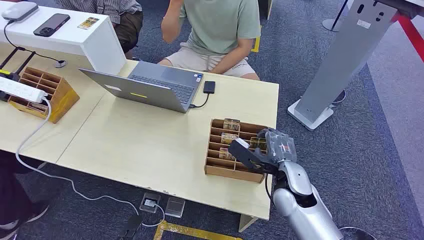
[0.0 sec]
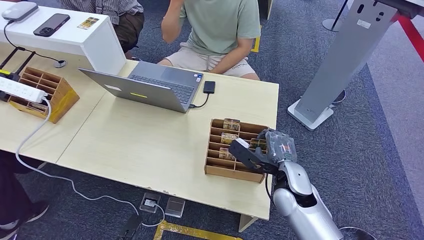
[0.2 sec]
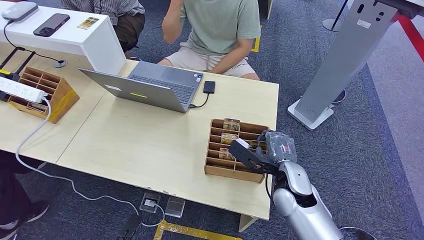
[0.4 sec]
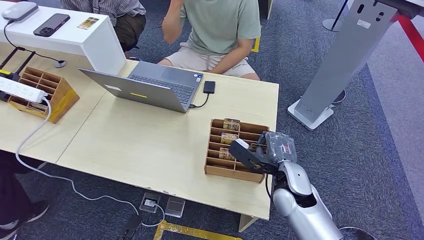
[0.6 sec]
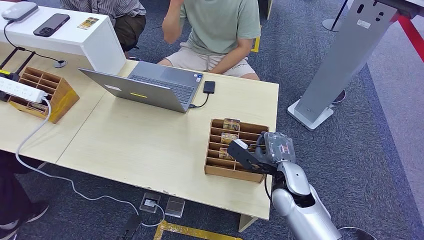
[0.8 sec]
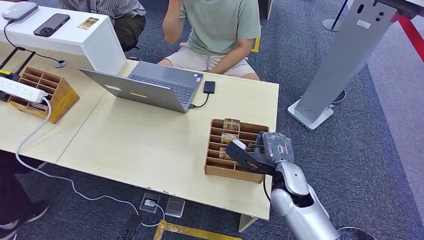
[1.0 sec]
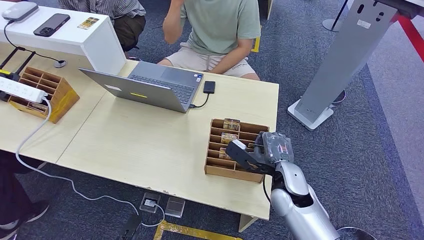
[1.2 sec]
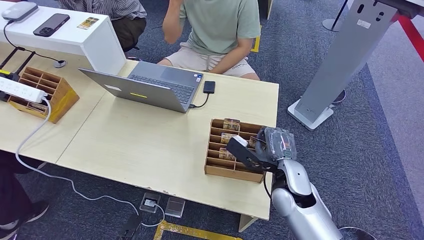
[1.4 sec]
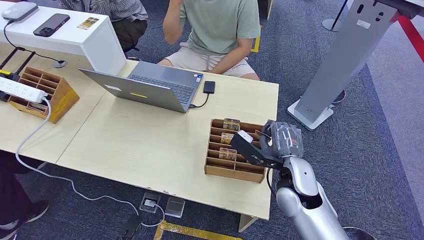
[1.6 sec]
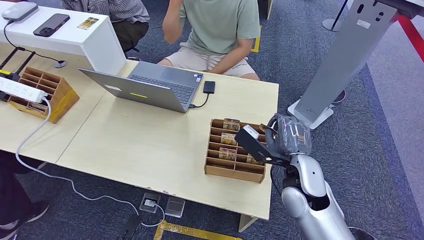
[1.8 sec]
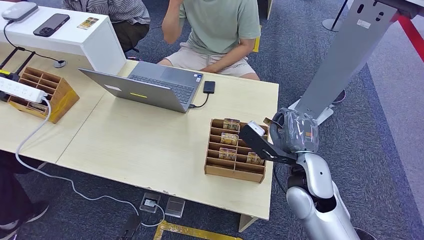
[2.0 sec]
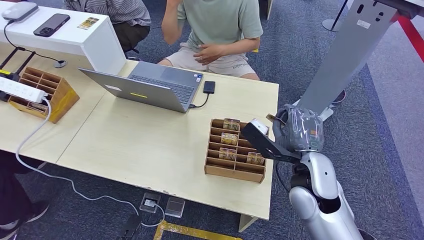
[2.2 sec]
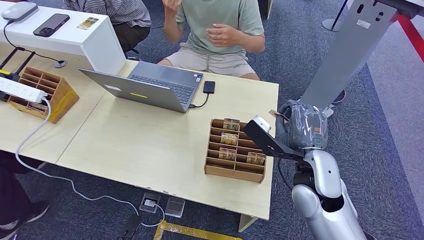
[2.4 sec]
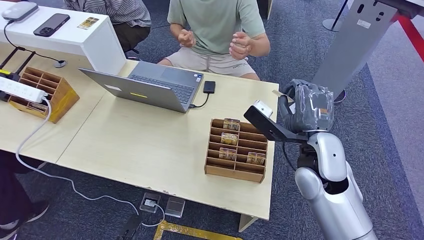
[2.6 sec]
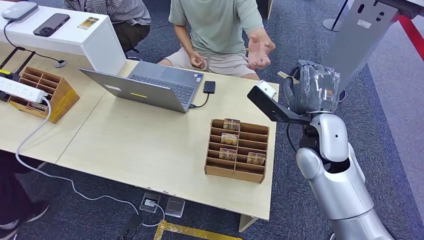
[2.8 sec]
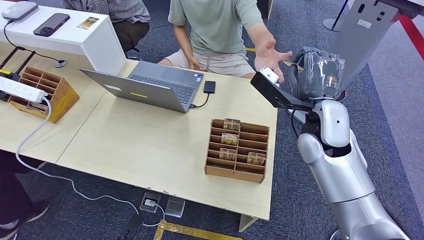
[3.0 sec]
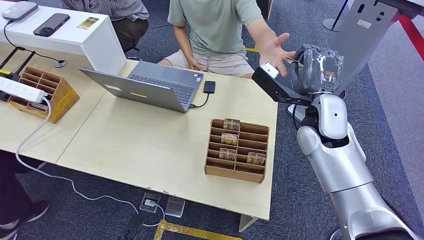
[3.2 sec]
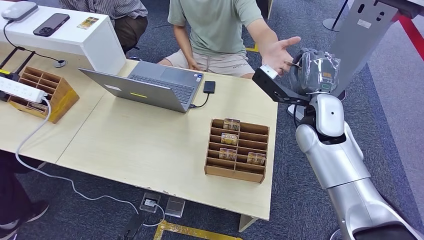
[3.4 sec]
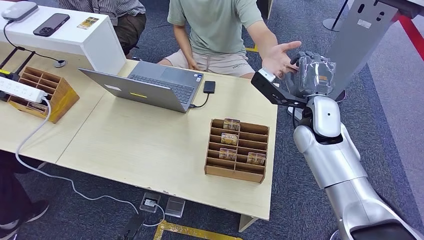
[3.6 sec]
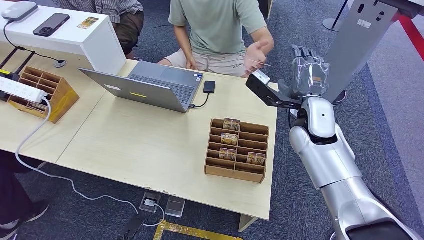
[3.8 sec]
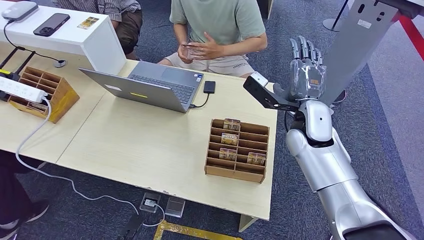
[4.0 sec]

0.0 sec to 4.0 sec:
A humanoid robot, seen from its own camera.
Step, 0.0 sec to 1.6 sec: Pick up the room card from the card holder.
Step, 3.0 sec to 4.0 sec: Hand the room card to the target.
1.4 sec to 2.6 sec: The right hand moves upward and forward, roughly 10 cm.
2.6 sec to 4.0 sec: There are only small adjustments of the hands.
